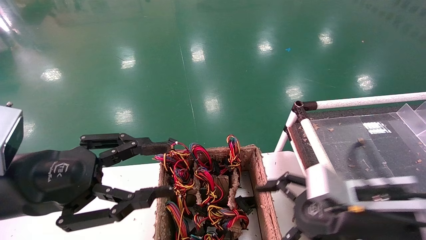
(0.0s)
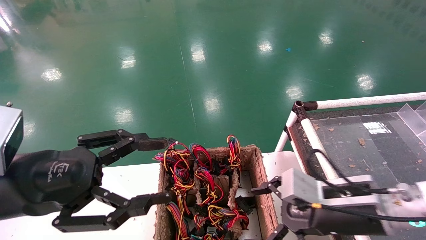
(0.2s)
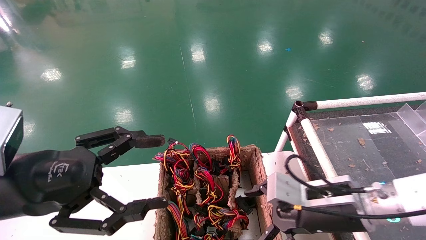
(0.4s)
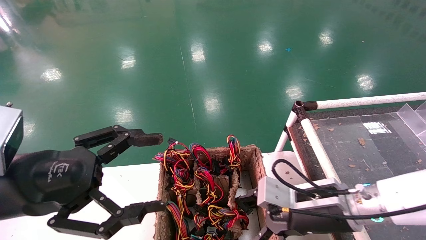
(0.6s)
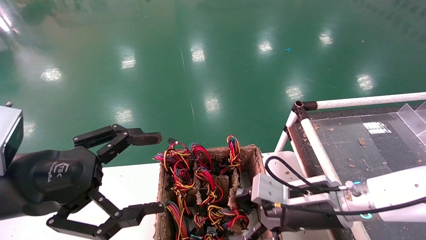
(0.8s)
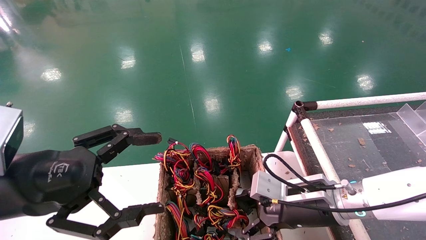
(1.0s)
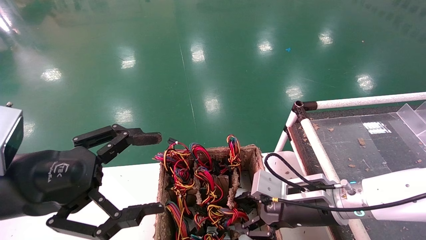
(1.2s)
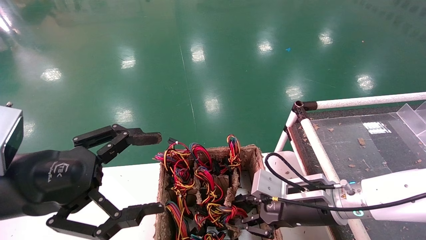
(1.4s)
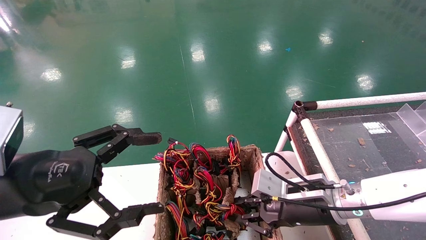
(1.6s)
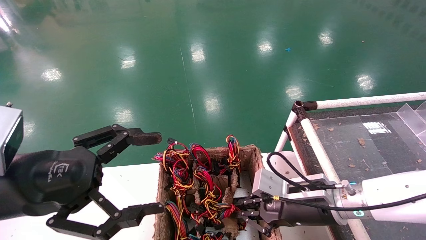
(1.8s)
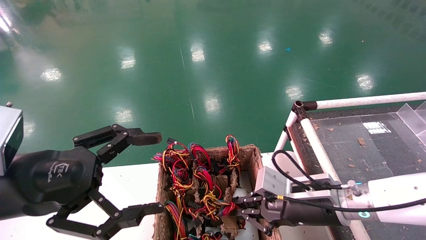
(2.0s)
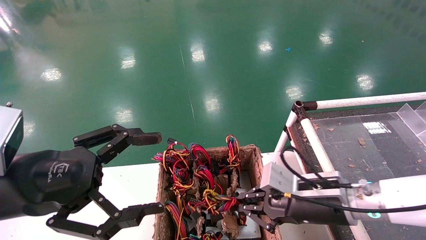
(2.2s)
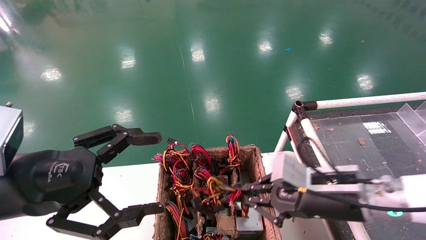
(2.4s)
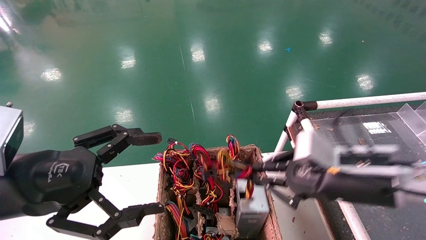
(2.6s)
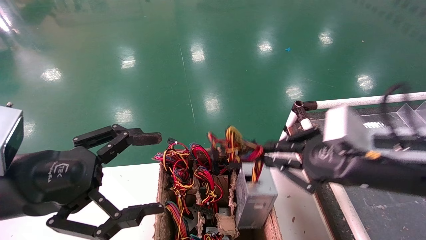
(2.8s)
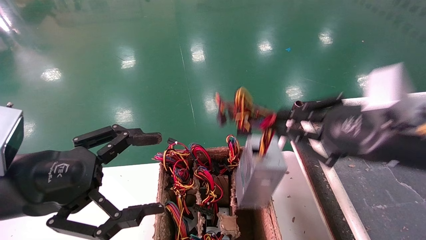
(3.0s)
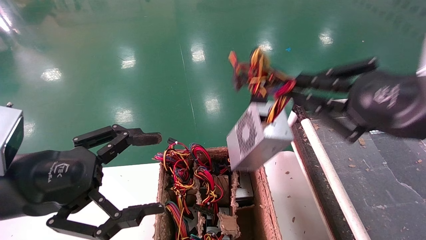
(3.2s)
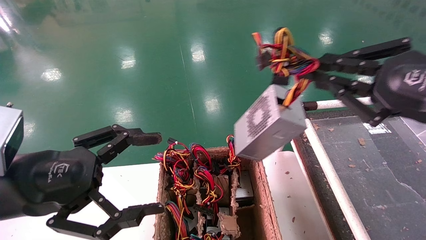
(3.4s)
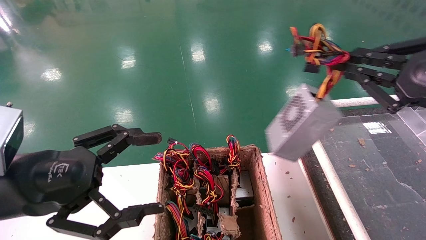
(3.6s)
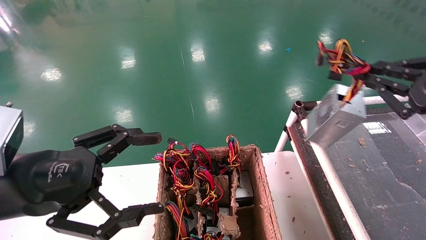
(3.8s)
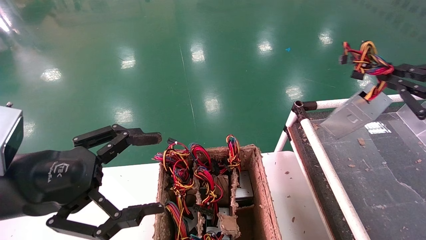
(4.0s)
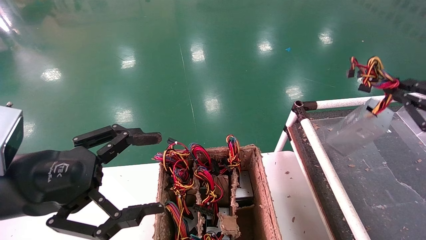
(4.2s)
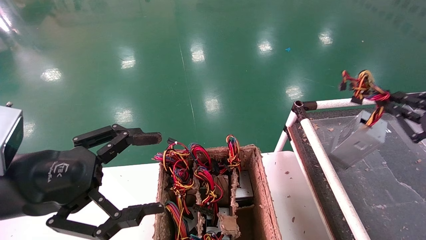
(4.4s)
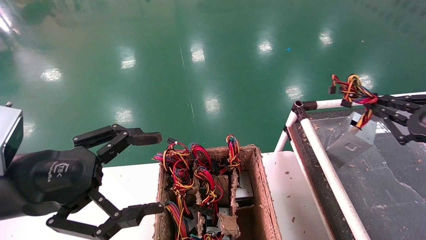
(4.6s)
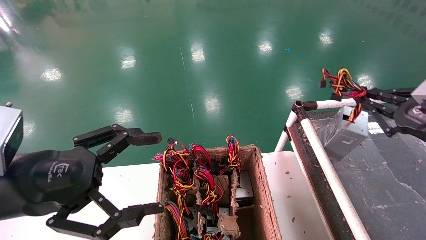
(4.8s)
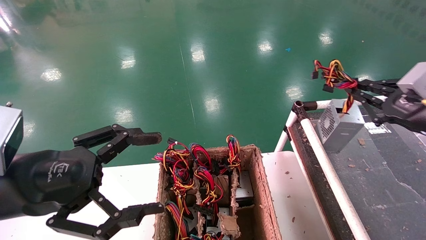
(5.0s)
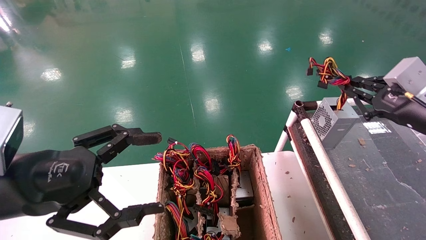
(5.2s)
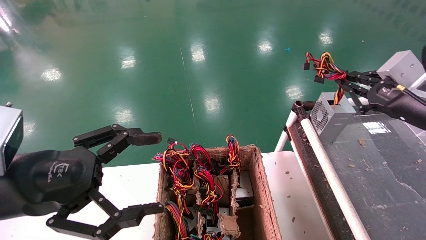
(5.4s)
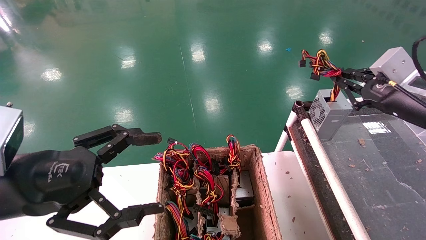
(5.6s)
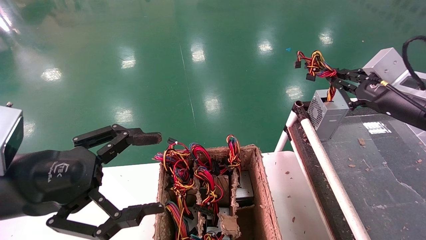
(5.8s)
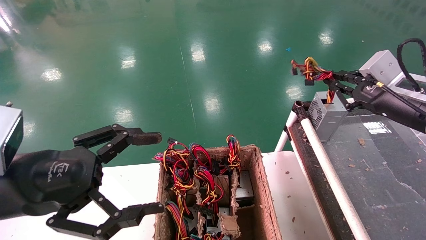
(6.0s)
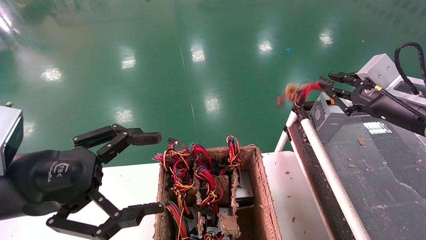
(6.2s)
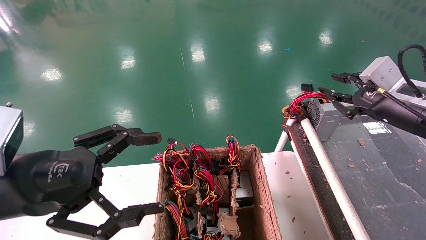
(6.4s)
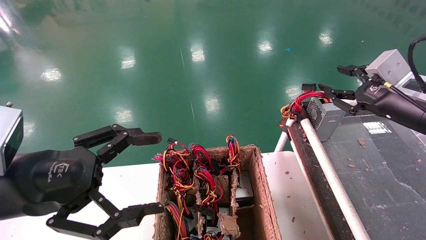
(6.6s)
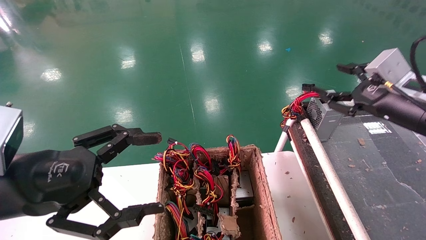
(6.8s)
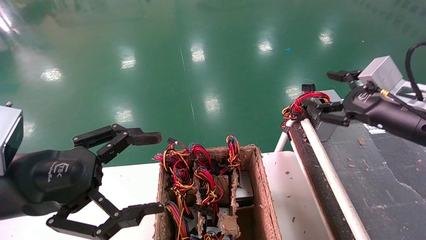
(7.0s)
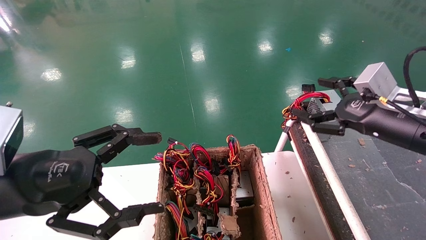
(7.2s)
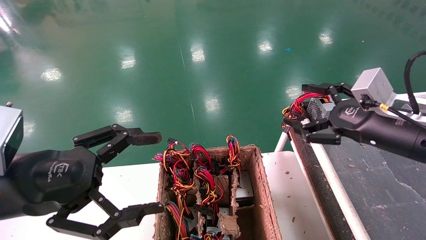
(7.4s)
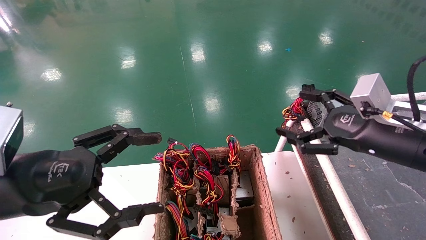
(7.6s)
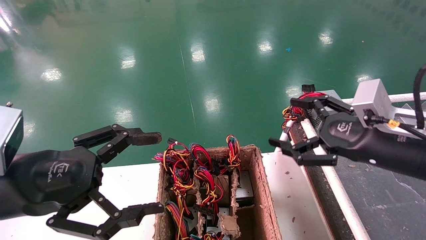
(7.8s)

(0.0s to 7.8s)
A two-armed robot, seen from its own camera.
Step, 0.0s - 1.8s: Grab and lift the power supply from the large box.
Step, 2.0s - 6.4s: Place the power supply on the operating table.
0.0s - 1.6s: The left gripper opens up, while the right gripper moves forward, some 5 cm, and closes.
1.6s - 3.2s: The right gripper moves upward, backward and to the right, approximately 25 cm.
3.2s - 4.6s: The right gripper is displaced to the right, downward and forward by some 15 cm.
4.6s - 6.2s: The right gripper heads forward and to the left, covering roughly 10 cm.
6.2s - 7.8s: The right gripper travels backward and to the left by approximately 10 cm, and opens its fingers.
